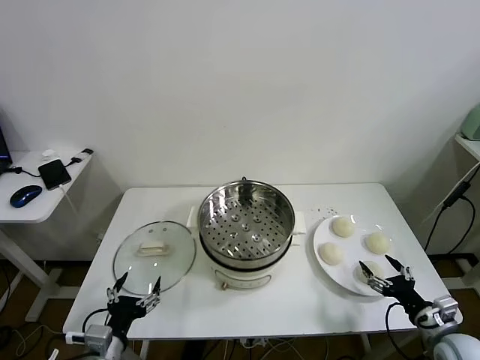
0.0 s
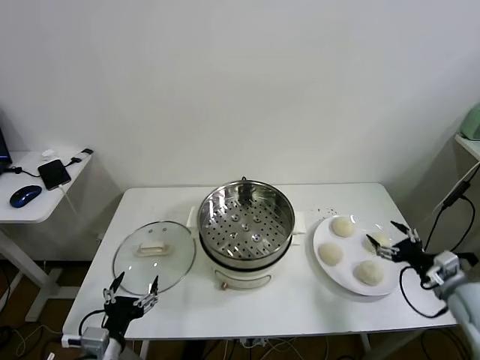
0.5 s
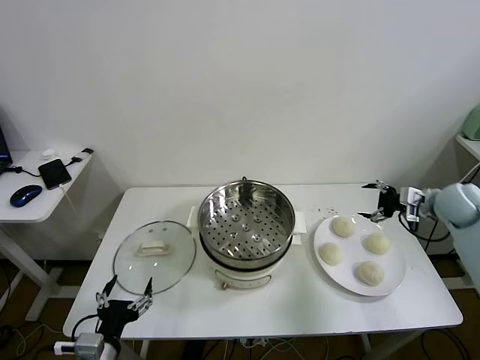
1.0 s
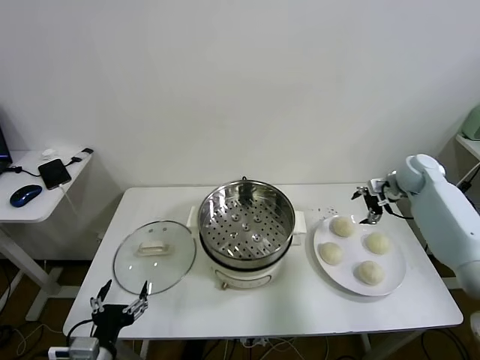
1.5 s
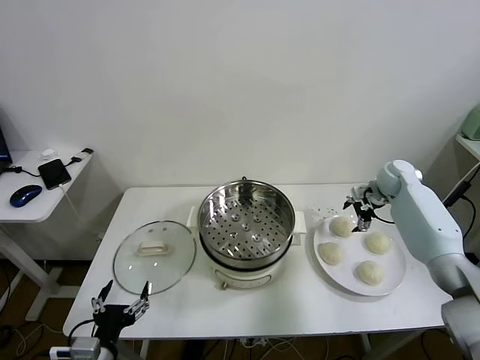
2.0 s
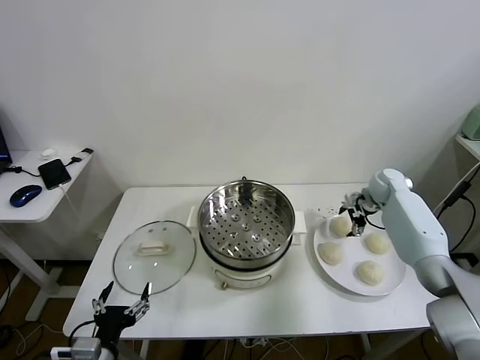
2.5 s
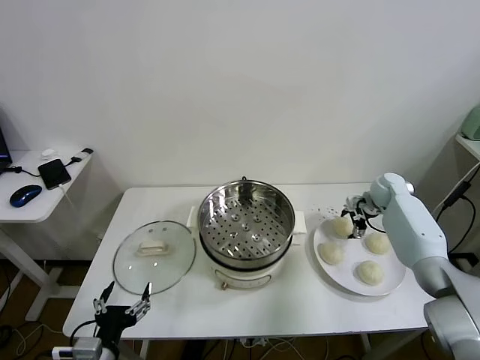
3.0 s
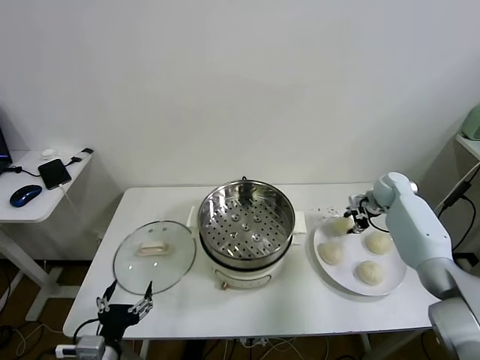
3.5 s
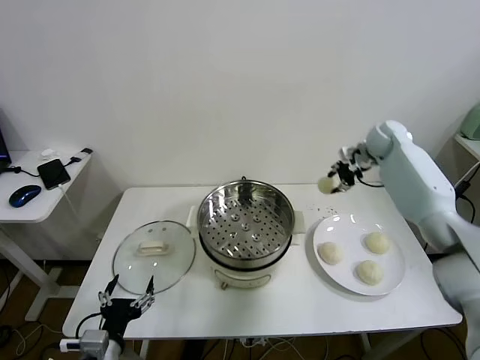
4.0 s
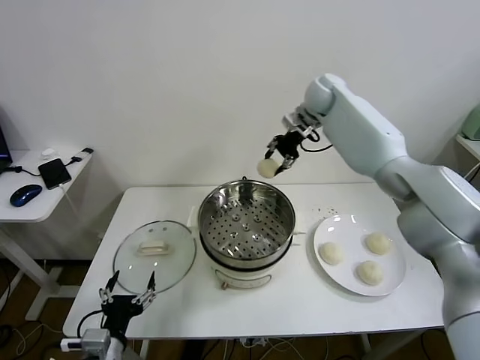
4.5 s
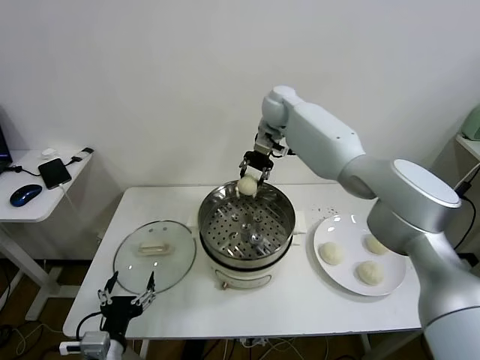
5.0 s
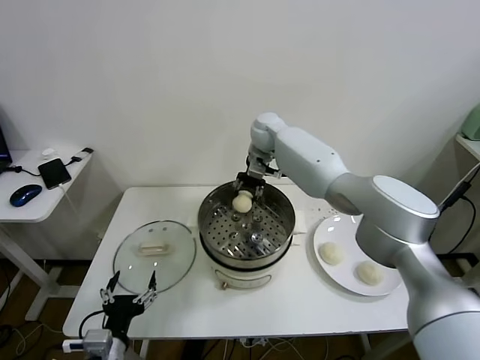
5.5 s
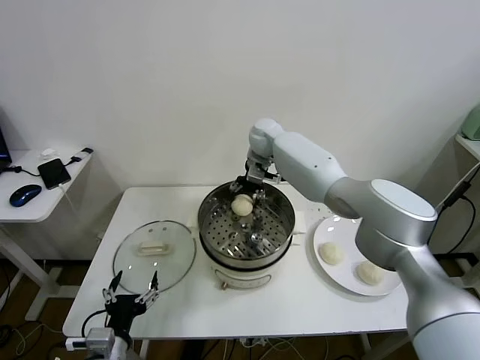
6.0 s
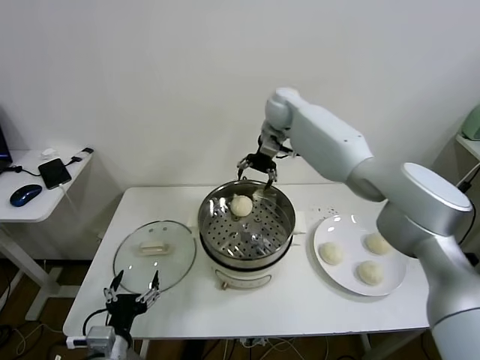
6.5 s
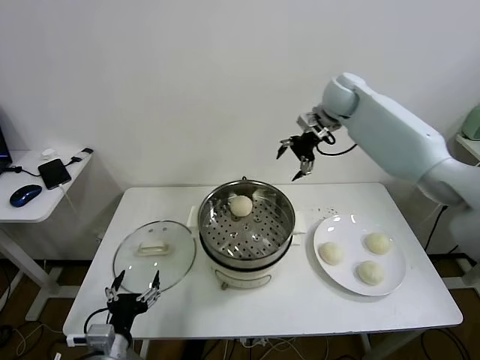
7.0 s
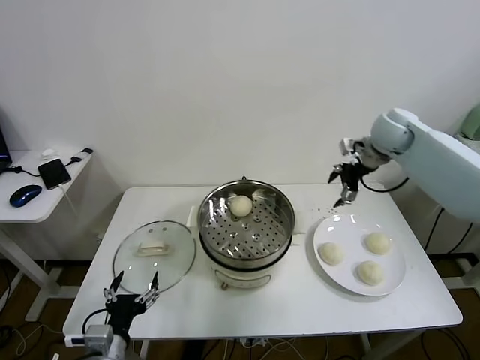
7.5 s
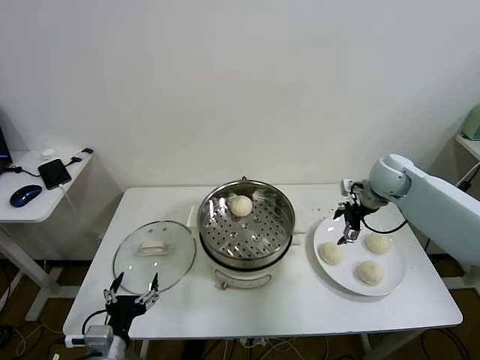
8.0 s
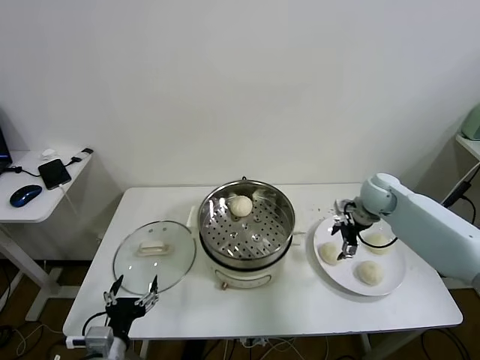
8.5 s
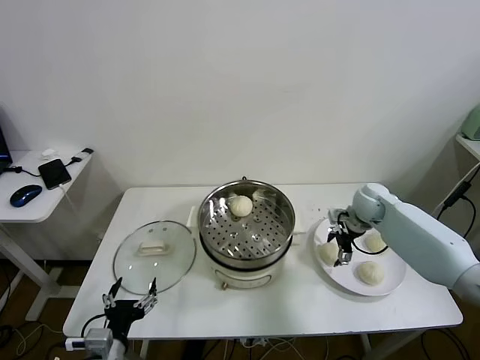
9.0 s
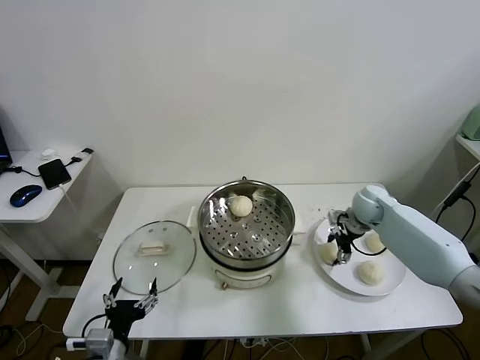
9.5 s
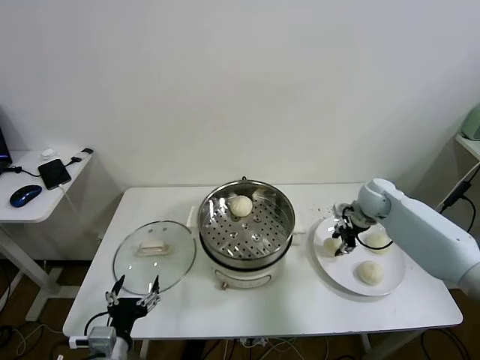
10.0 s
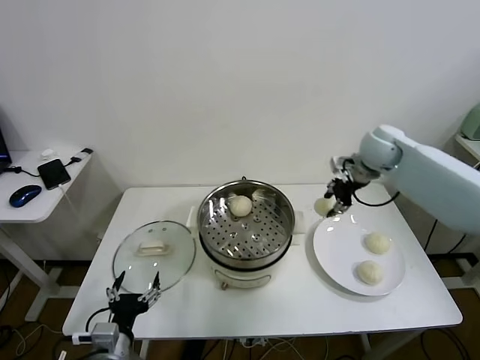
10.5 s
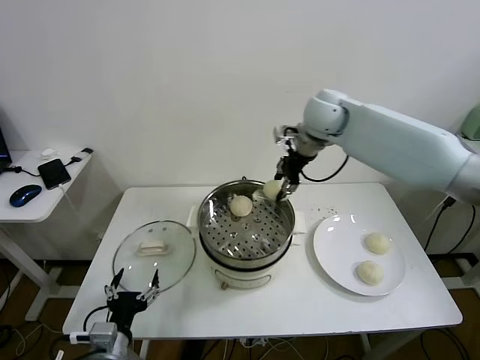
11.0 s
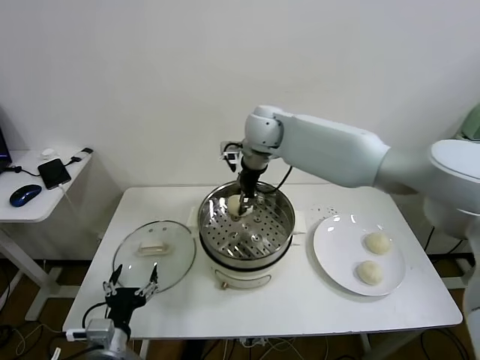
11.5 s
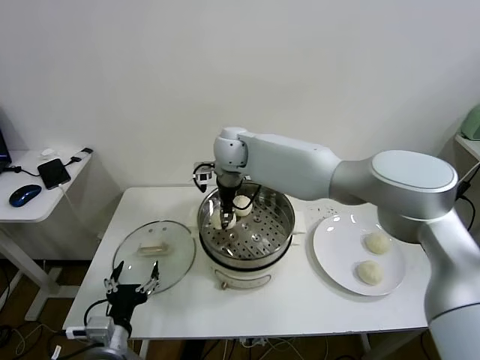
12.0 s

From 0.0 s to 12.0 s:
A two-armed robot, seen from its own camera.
Task of the whole recording: take steamed baozi put them in steamer.
Step, from 0.0 s to 3.0 s: Grasp the baozi in the plate with right gripper.
Step, from 3.5 s to 6.0 s: Place the baozi on the steamer with right gripper.
Step, from 6.5 s to 9.5 s: Grasp the baozi in the plate with right gripper.
From 2.0 s to 4.0 s: The right gripper moves upward, to the left and forward, some 20 cm, and closes up.
From 4.0 s to 6.0 s: The right gripper is displaced to the left by some 25 cm, and opens up.
From 6.0 s to 8.0 s: The right gripper shifts roughly 30 cm to the right and backward.
From 8.0 s to 10.0 s: The right gripper shifts about 5 cm downward, and closes.
From 10.0 s to 12.0 s: The right gripper travels to the left by some 40 cm.

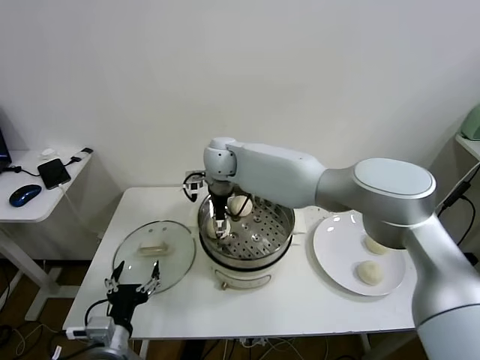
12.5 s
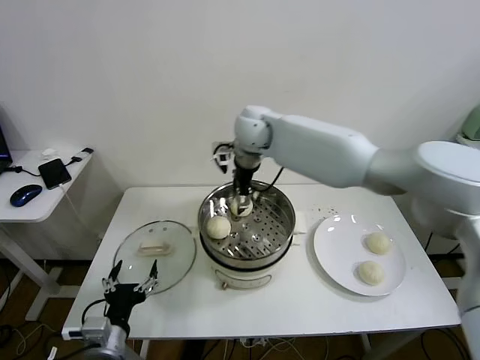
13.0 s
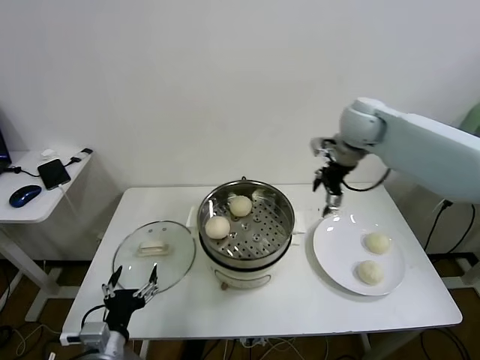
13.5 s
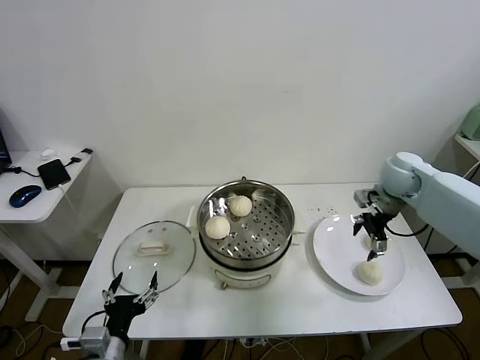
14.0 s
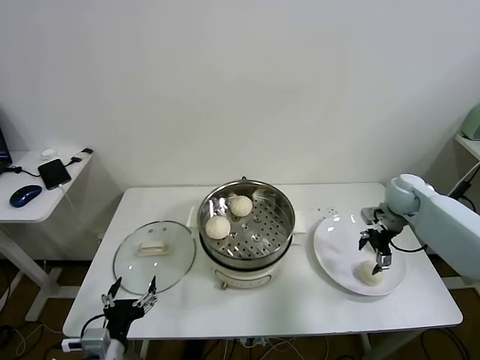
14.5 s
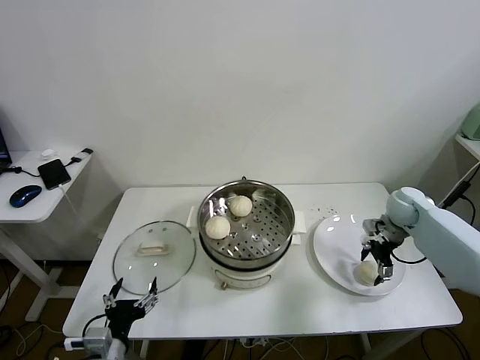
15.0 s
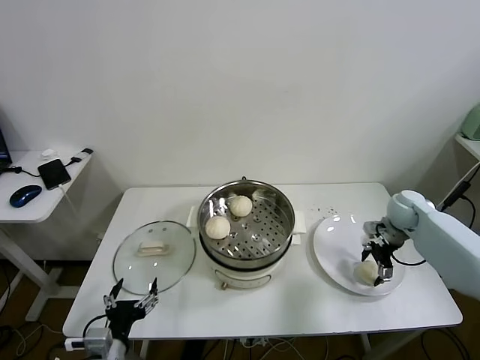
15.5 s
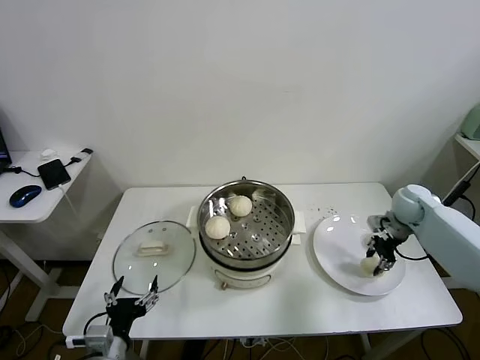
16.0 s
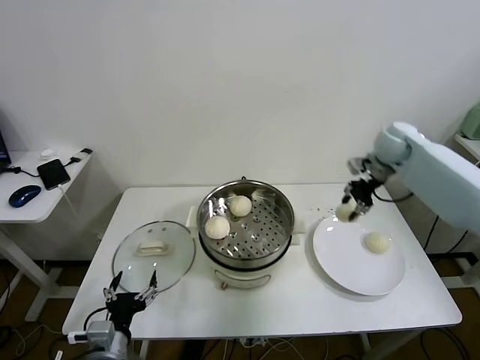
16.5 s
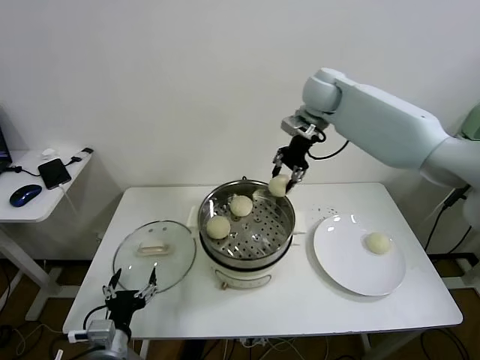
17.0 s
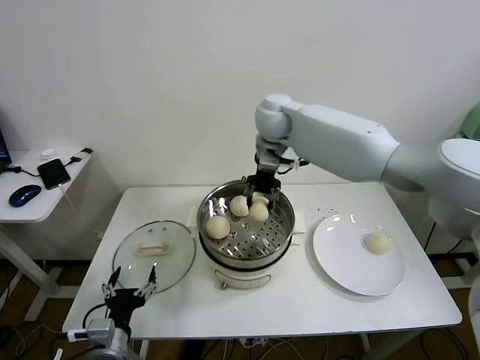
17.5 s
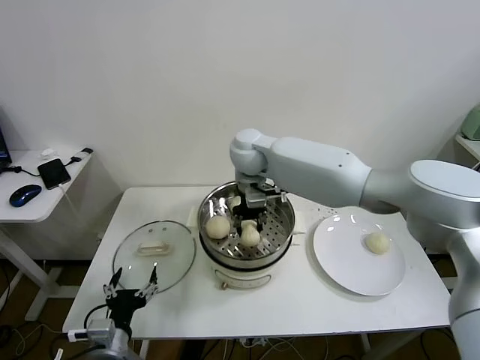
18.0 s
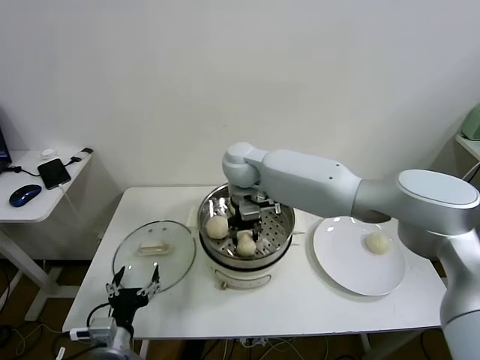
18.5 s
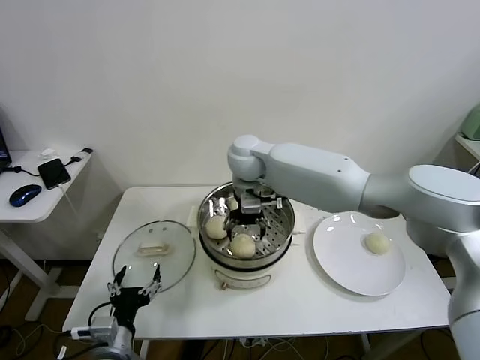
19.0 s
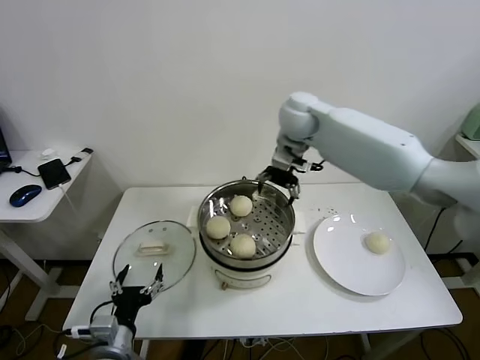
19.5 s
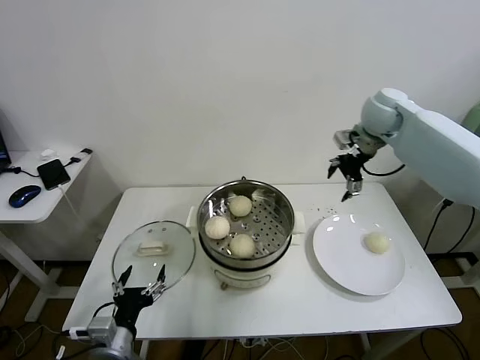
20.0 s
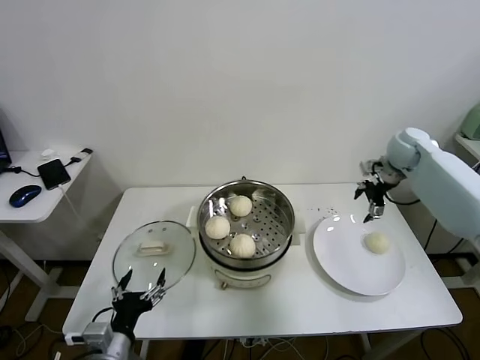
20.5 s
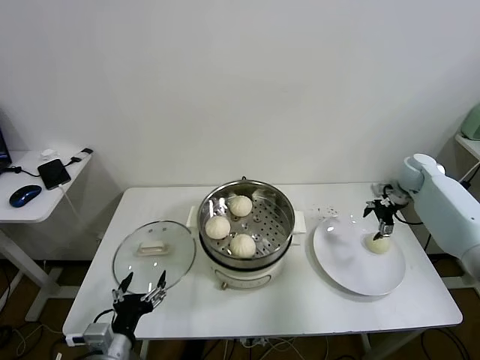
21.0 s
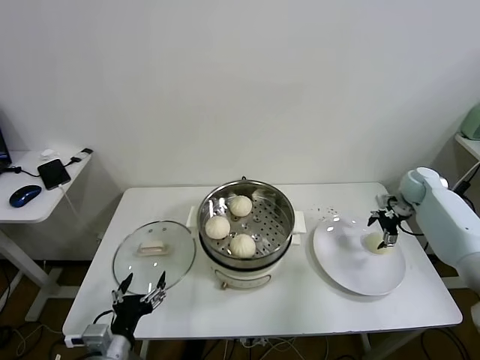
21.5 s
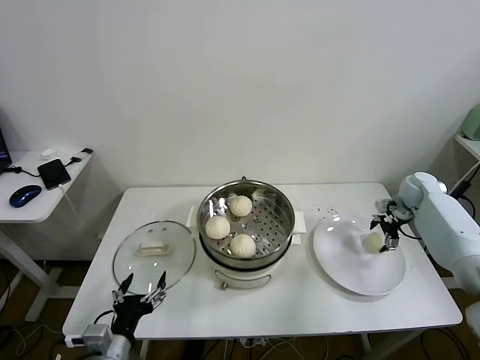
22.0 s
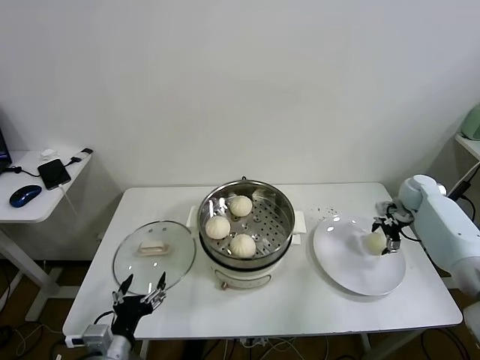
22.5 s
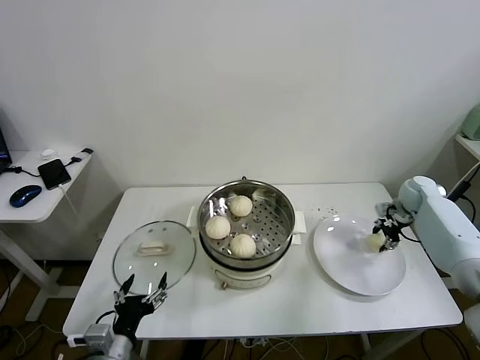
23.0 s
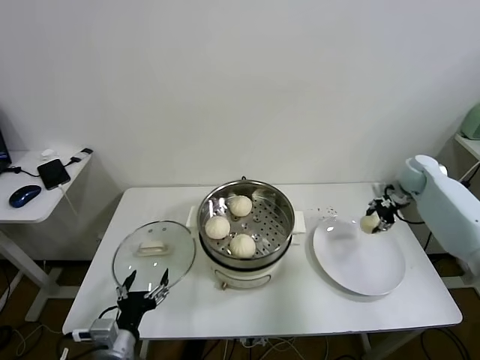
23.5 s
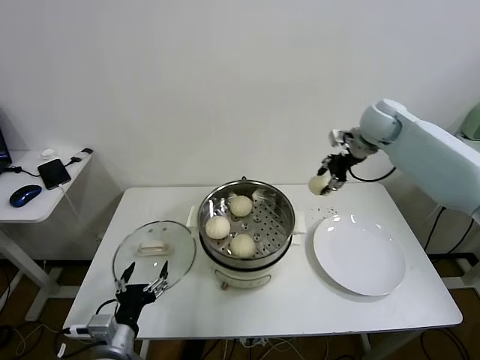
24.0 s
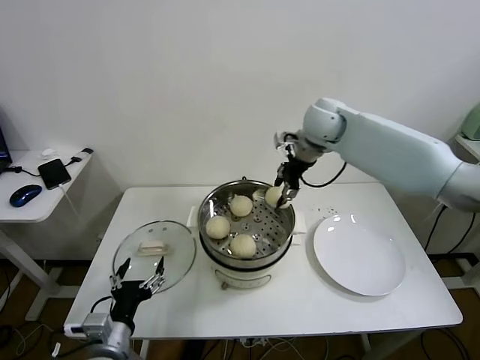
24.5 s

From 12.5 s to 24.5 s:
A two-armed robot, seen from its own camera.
Task of the whole recording: take steamed baozi put them in steamer.
Step, from 13.0 s to 15.5 s: Grasp the baozi in the plate with right gripper.
Step, from 16.0 s to 19.0 s: Place the baozi on the steamer with right gripper.
Step, from 19.5 s to 22.5 s: Grasp the baozi in the plate with right gripper.
From 12.5 s to 14.5 s: The right gripper is displaced to the right by some 50 cm.
From 14.5 s to 16.5 s: The right gripper heads upward, forward and to the left, covering approximately 20 cm, and closes its fingers.
From 16.5 s to 18.5 s: The right gripper heads to the left, covering about 35 cm.
From 18.5 s to 20.5 s: The right gripper moves to the right, approximately 40 cm, and opens up.
From 20.5 s to 22.5 s: The right gripper shifts about 15 cm downward and to the right.
From 22.5 s to 24.5 s: The right gripper goes some 40 cm to the left and upward, and closes its fingers.

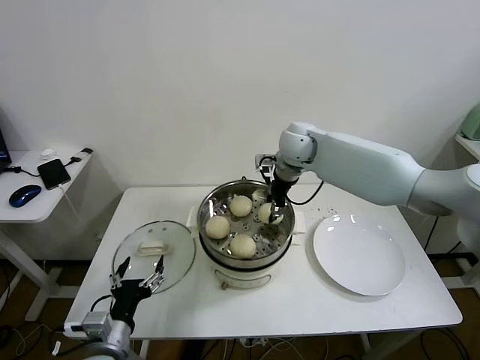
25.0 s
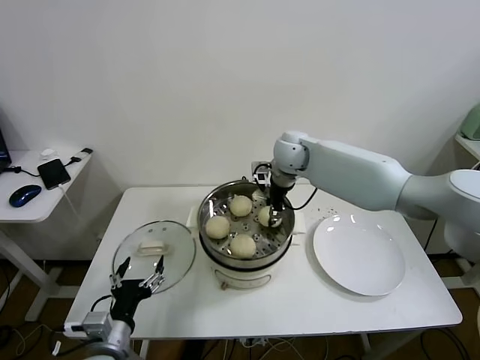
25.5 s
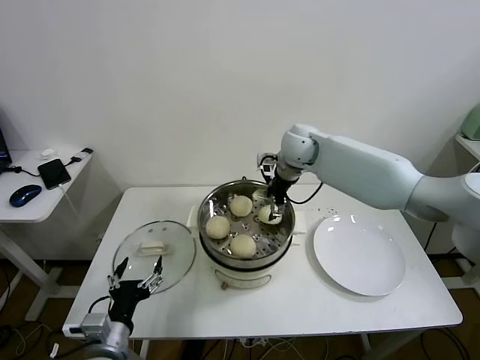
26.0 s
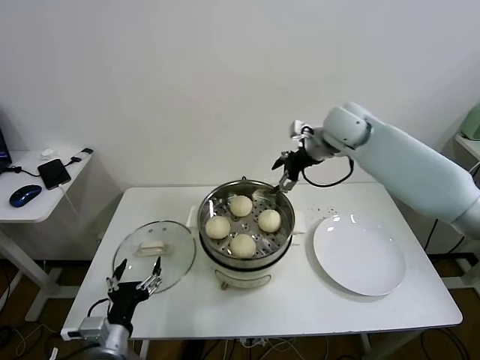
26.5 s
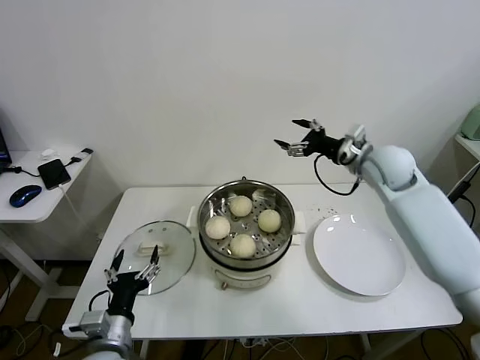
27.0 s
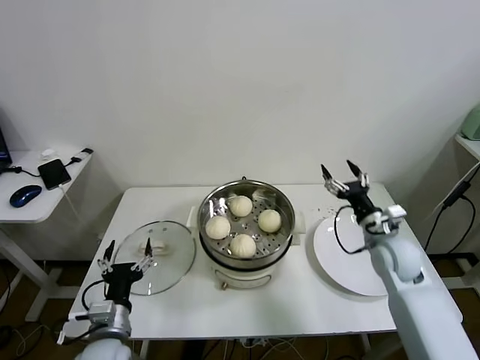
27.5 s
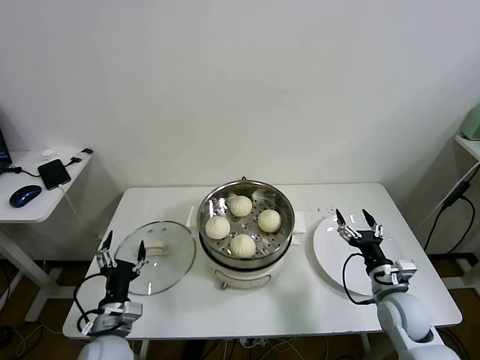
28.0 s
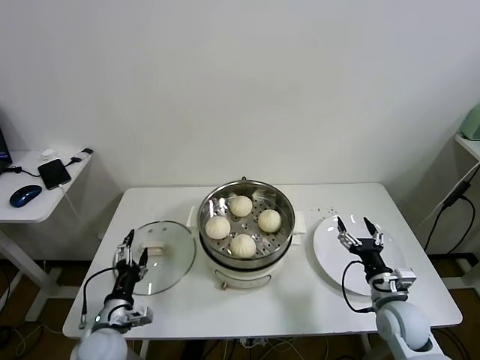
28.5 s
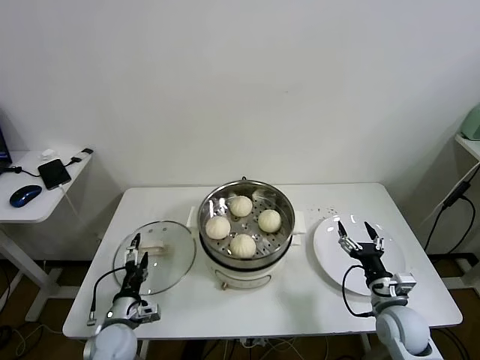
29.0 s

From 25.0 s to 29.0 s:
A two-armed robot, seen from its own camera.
Task of the whole recording: take steamed baozi put them in steamer.
From 25.0 s to 27.0 s: The right gripper goes some 20 cm to the right, and opens.
From 27.0 s to 29.0 s: The right gripper is displaced downward and backward by about 35 cm, while the left gripper is displaced downward and forward by about 15 cm.
